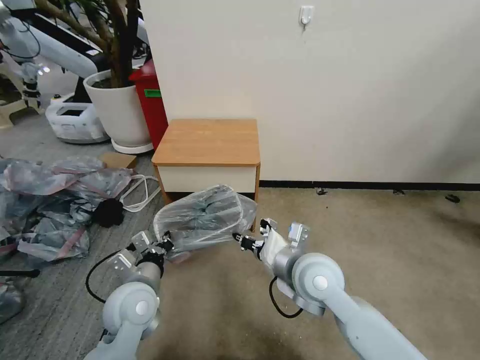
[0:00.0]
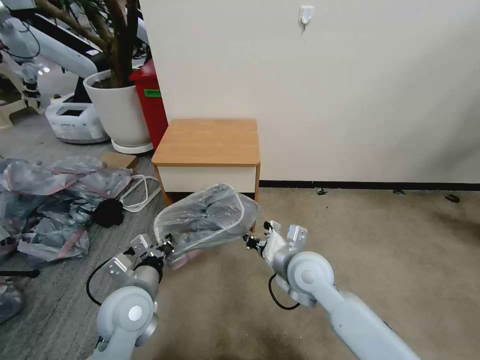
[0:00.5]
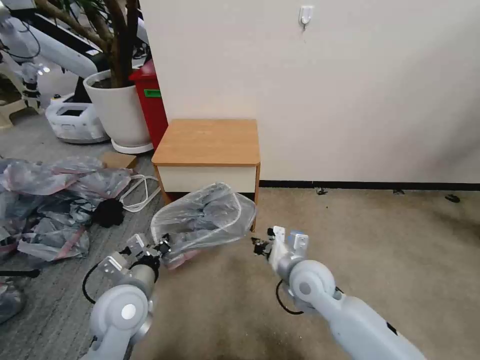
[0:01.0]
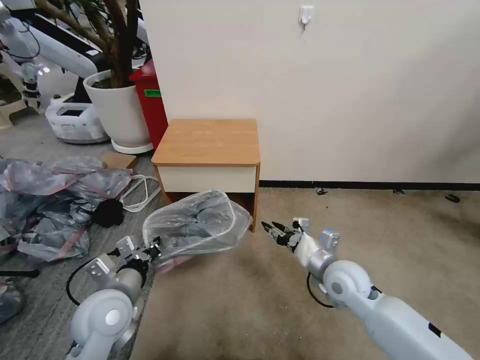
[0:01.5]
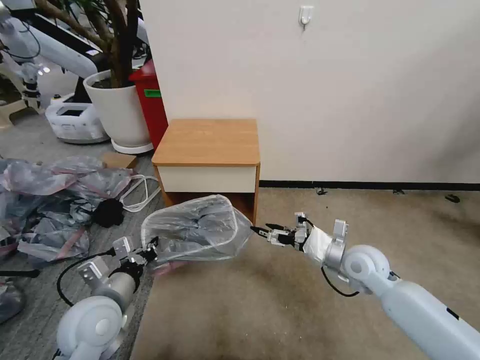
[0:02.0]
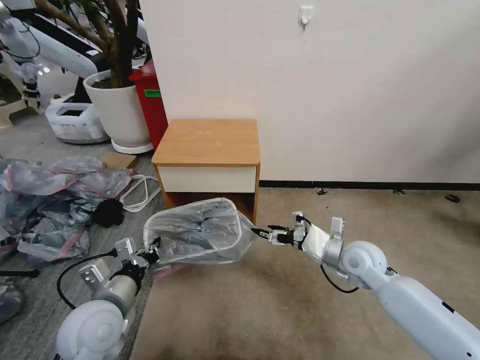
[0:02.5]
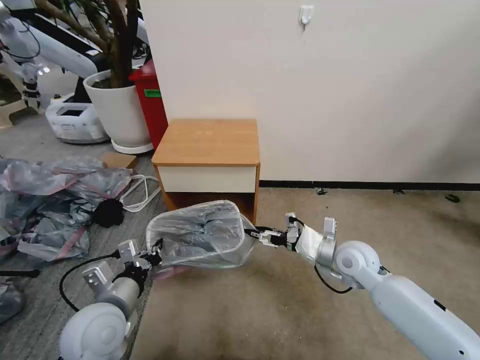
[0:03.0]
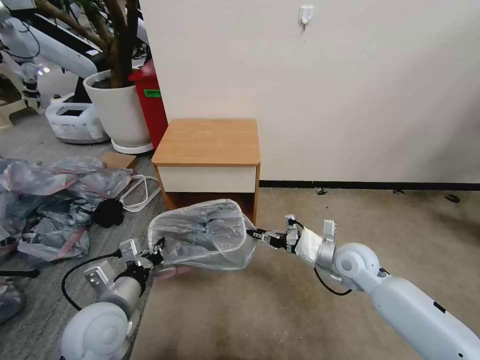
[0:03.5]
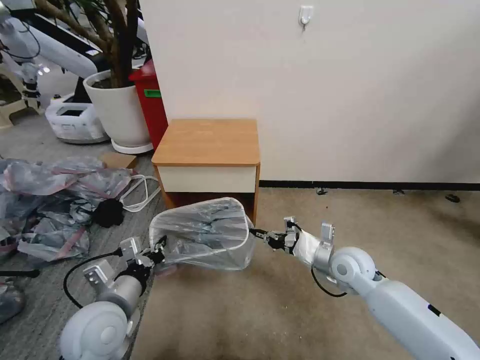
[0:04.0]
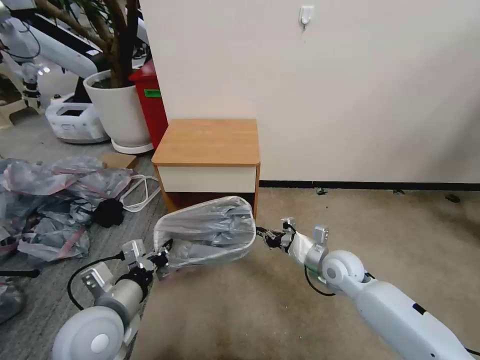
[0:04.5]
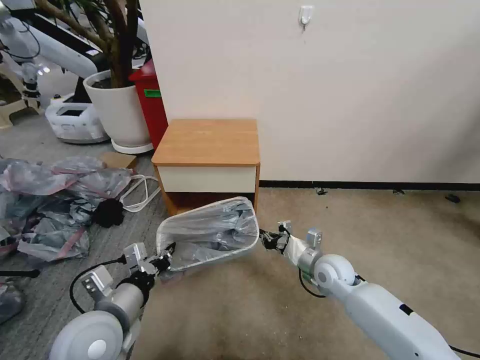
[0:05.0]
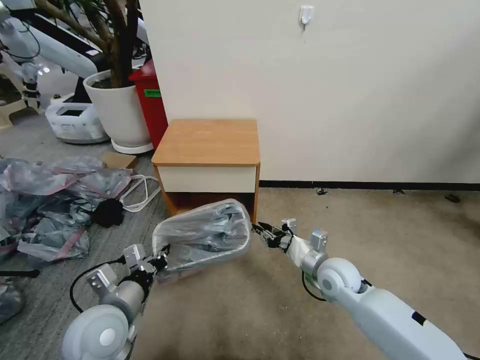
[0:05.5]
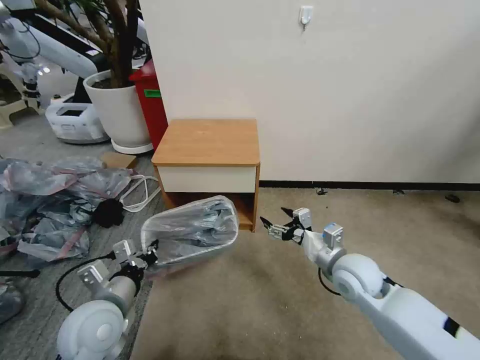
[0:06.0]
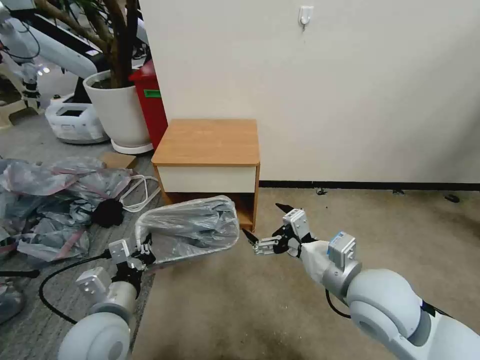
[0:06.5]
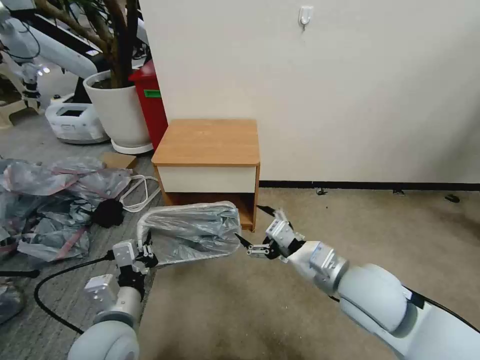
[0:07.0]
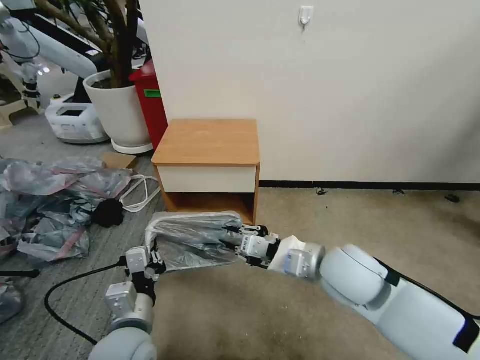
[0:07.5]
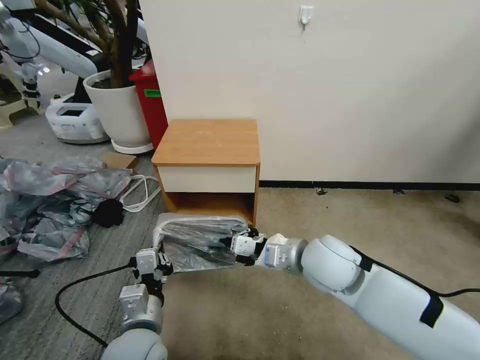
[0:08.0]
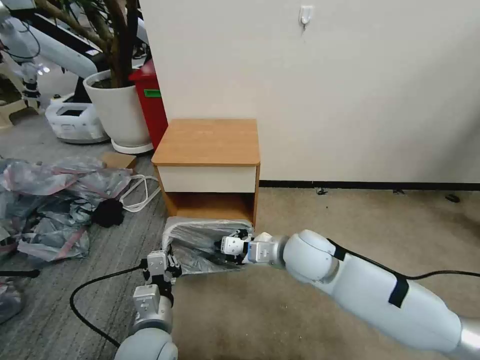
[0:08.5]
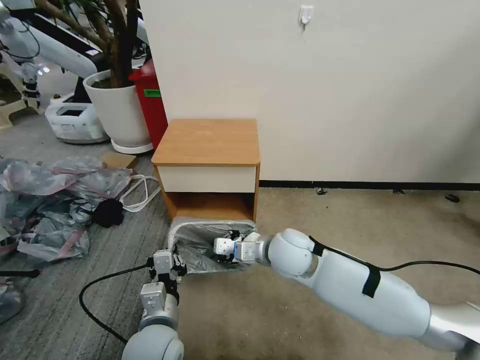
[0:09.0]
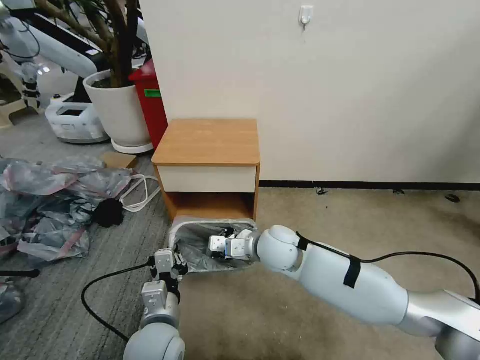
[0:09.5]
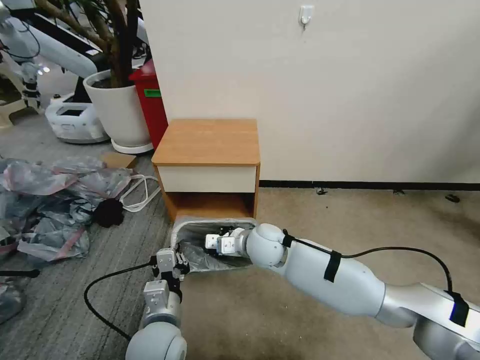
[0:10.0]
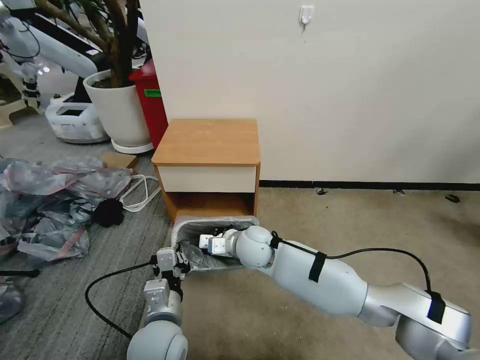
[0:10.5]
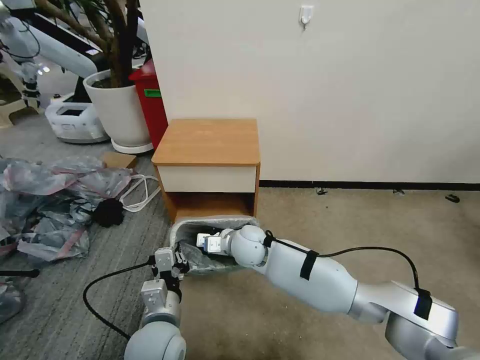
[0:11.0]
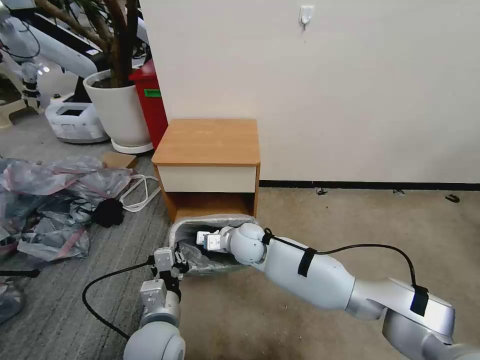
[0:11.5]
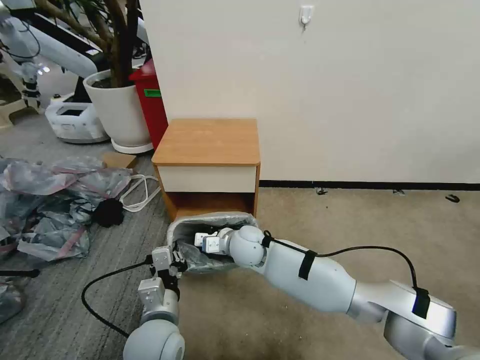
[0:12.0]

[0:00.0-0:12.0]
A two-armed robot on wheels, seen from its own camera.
Task of the whole recording: Pick up the garbage bag from the table and place it over the trash can.
0:00.0 to 0:02.0: The left gripper moves to the left, approximately 5 cm. The right gripper is displaced to the right, downward and forward by approximately 20 cm, and opens.
0:02.0 to 0:04.0: The right gripper closes.
0:04.0 to 0:06.0: The right gripper goes some 5 cm upward, and opens up.
0:06.0 to 0:08.0: The left gripper moves to the right, some 10 cm, while the right gripper is displaced to the left and upward by roughly 10 cm, and closes its fingers.
0:08.0 to 0:10.0: The right gripper goes approximately 15 cm to the left, forward and downward.
0:10.0 to 0:12.0: The right gripper ends up some 5 cm from where it was.

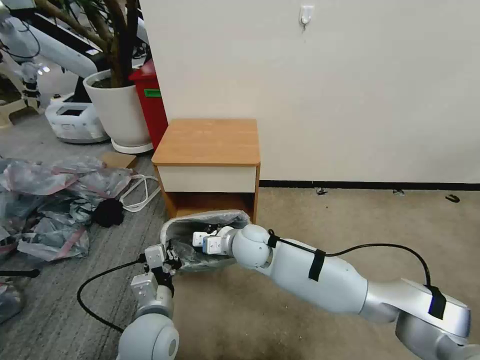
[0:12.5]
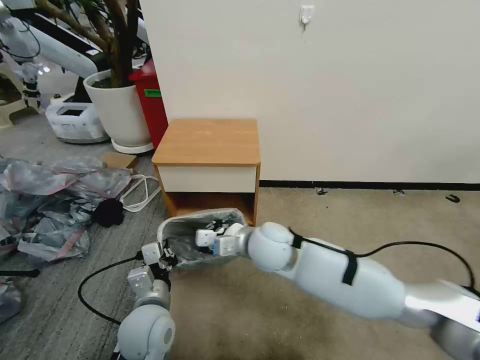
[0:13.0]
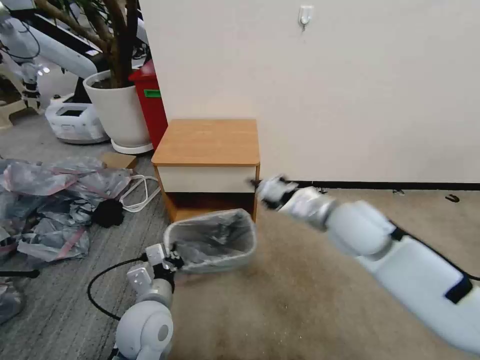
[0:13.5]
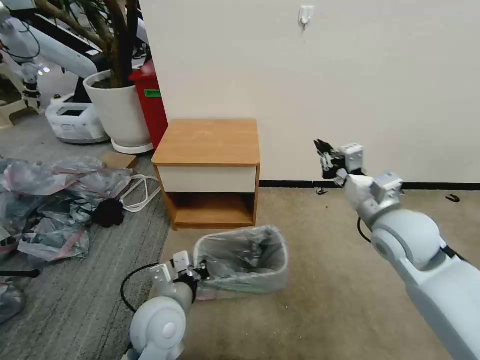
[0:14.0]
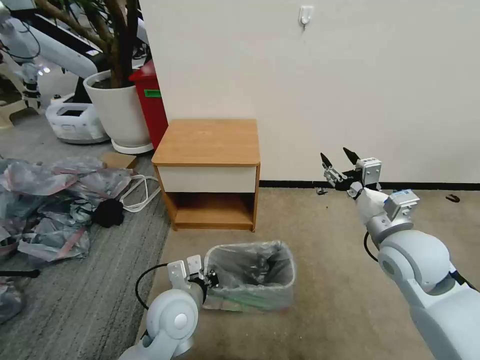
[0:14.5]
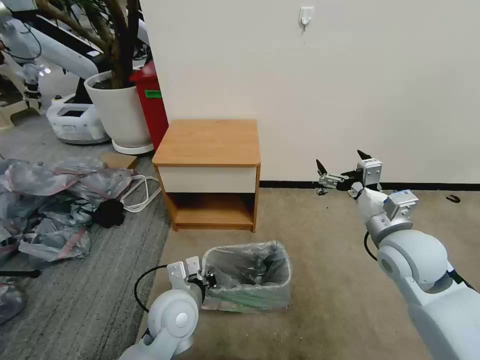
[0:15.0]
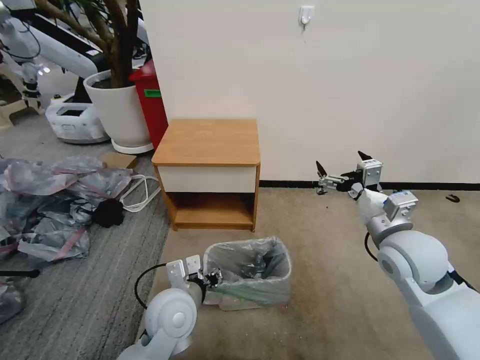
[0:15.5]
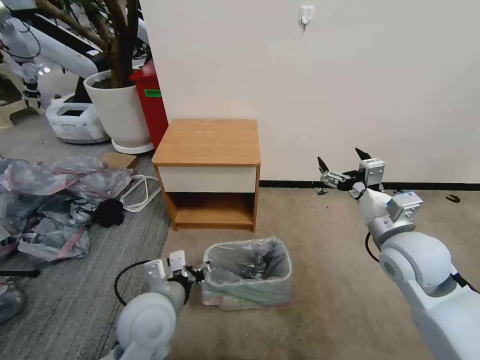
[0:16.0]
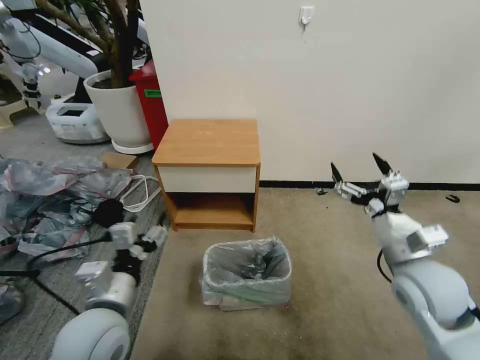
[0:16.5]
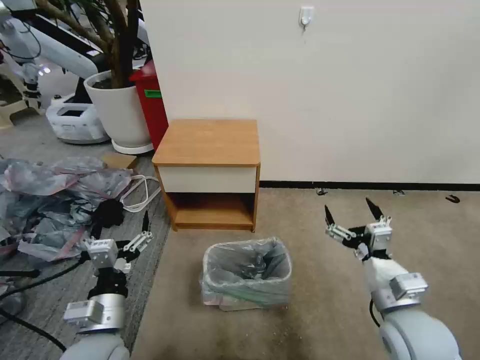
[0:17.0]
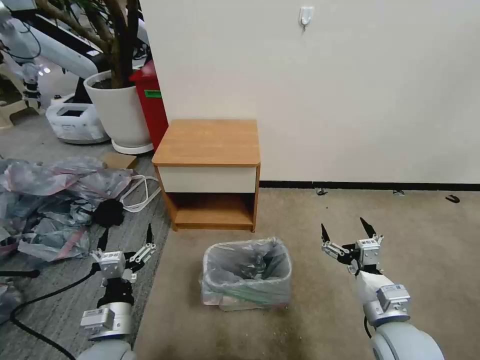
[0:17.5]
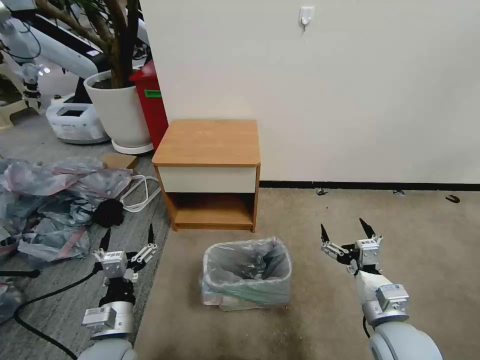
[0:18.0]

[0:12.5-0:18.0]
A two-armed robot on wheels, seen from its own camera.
Task of the whole recording: Pick up the garbage bag from the table and place it over the trash can.
0:12.5 to 0:14.5: The left gripper moves about 5 cm, while the right gripper moves to the right and upward, some 30 cm, and opens its fingers.
0:14.5 to 0:16.0: The left gripper shifts by roughly 5 cm, and opens up. The right gripper opens.
0:16.0 to 0:18.0: The right gripper moves downward and backward, roughly 15 cm, while the left gripper heads to the left, downward and backward, covering about 10 cm, and opens.

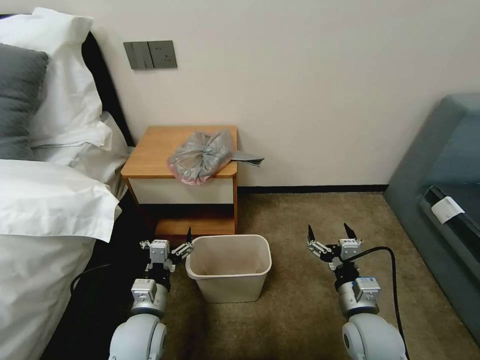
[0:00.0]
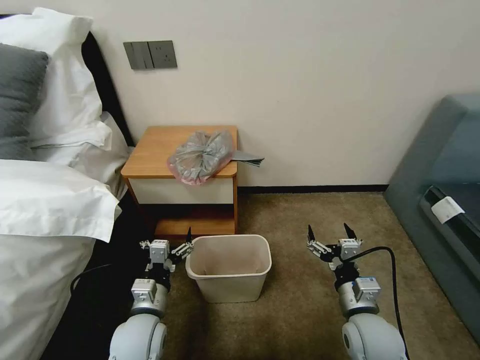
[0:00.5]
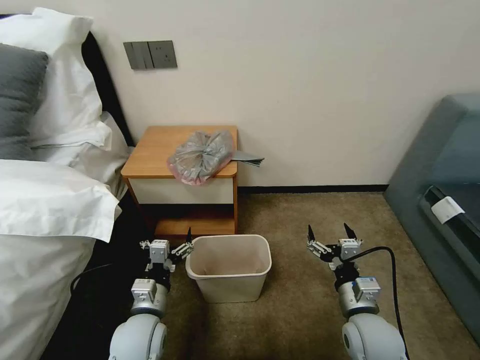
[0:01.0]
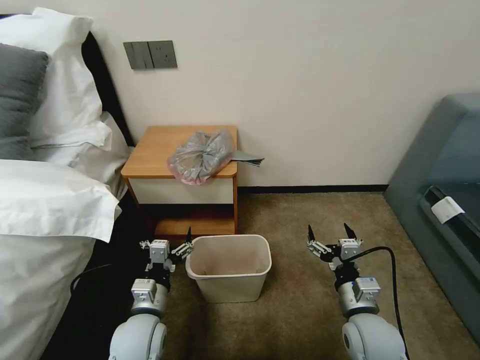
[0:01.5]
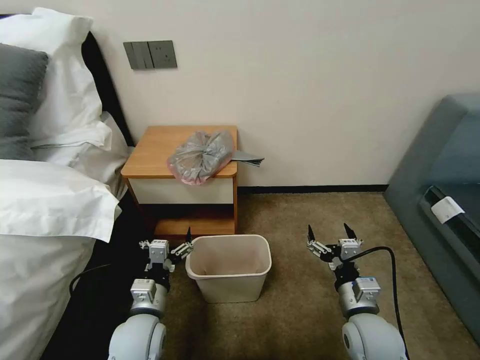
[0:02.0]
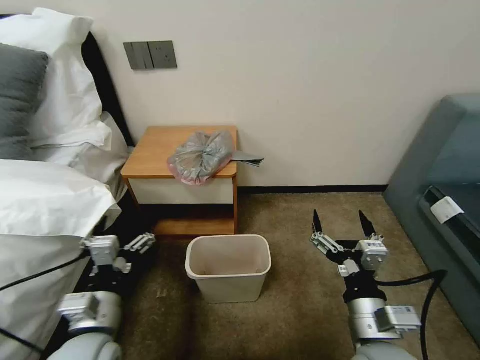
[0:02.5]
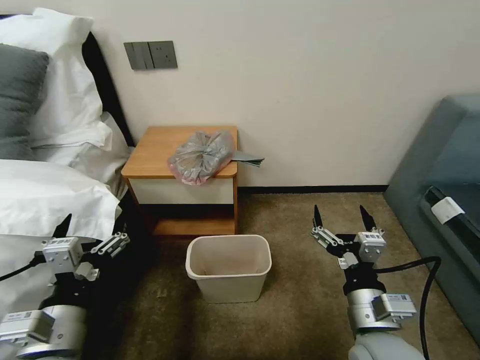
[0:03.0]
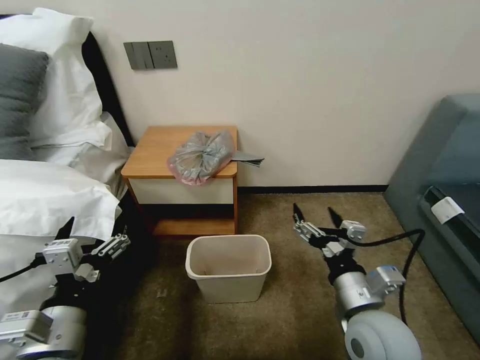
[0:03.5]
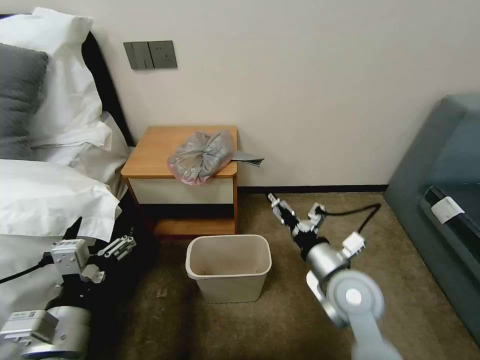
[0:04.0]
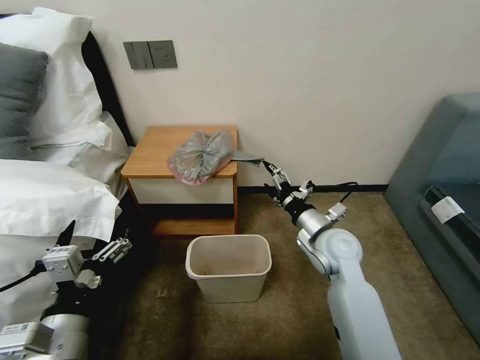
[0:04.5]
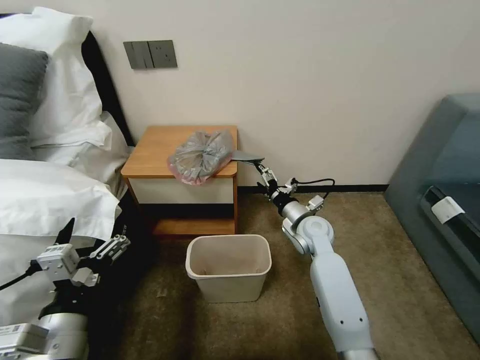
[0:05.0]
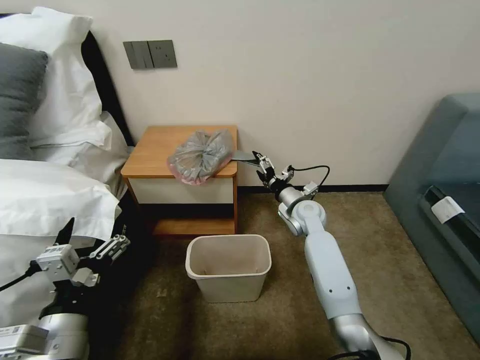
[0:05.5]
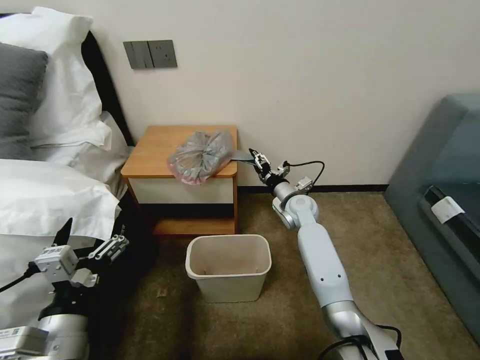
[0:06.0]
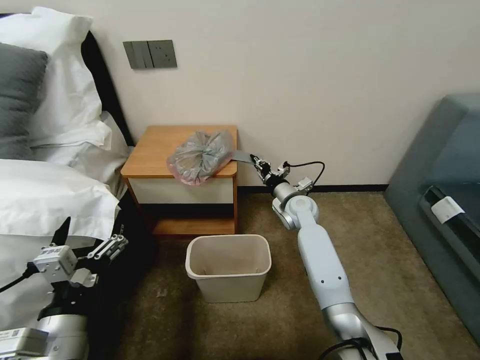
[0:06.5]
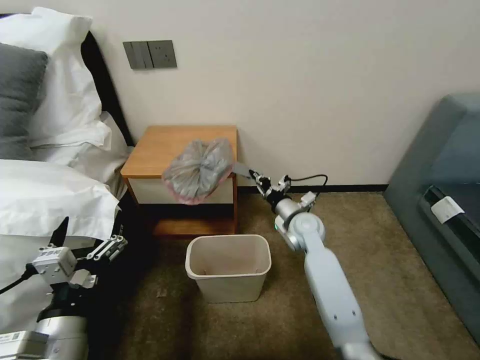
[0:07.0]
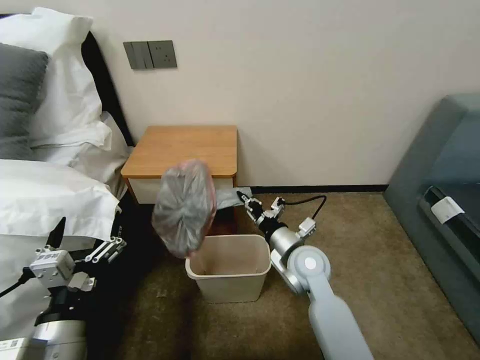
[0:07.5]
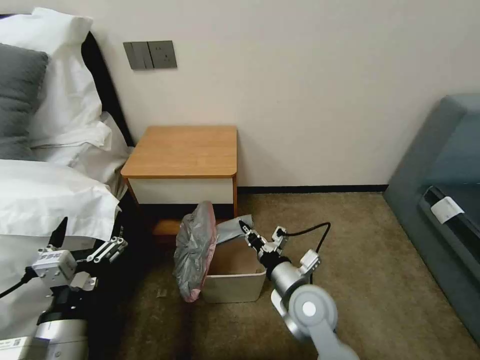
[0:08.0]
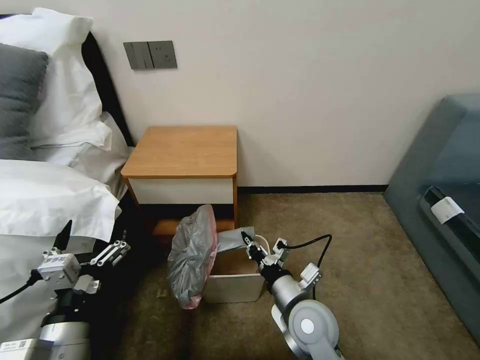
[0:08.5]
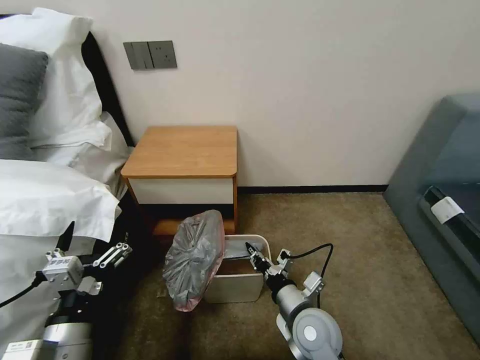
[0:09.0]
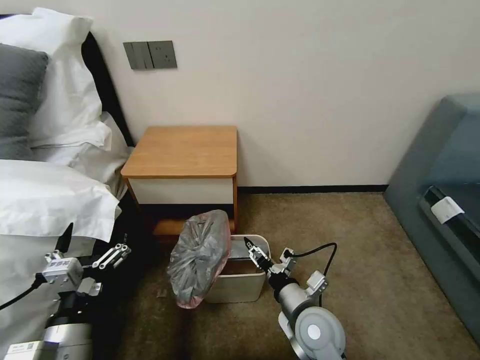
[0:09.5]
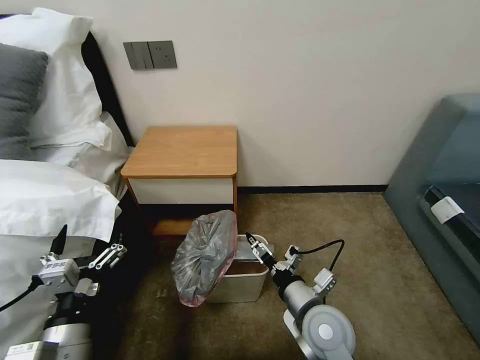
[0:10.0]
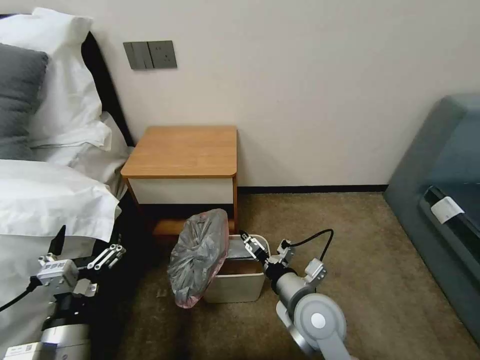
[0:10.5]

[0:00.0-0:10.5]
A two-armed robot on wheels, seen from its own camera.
Task of the whole recording: Pick up the garbage bag from the table and place it over the trash can.
0:02.0 to 0:04.0: The right gripper goes approximately 10 cm upward. Meanwhile the left gripper goes some 15 cm upward and backward.
0:04.0 to 0:06.5: The right gripper is displaced forward by approximately 25 cm, and closes its fingers.
0:06.5 to 0:08.5: The right gripper is displaced backward by roughly 30 cm.
0:08.5 to 0:10.5: The right gripper opens.
